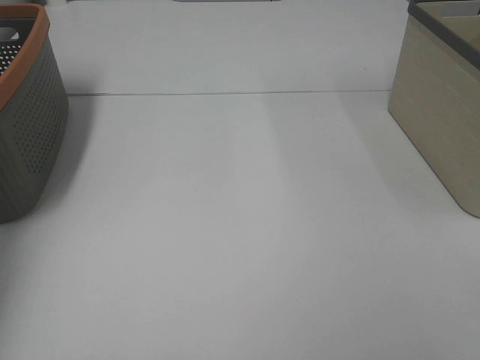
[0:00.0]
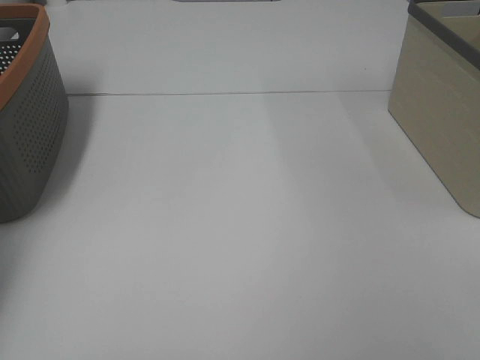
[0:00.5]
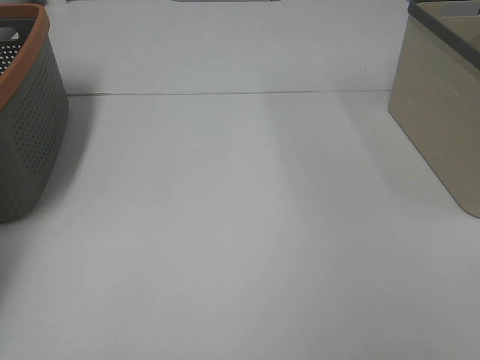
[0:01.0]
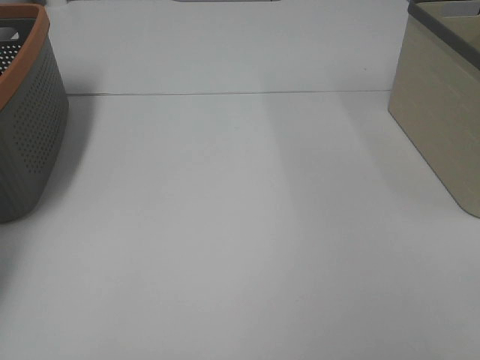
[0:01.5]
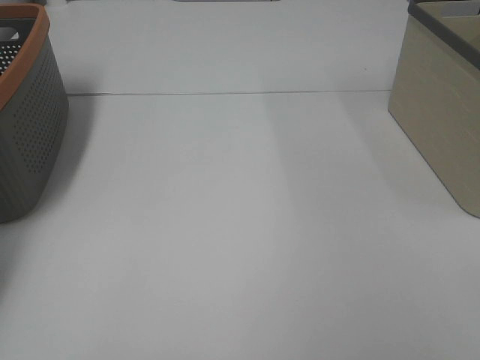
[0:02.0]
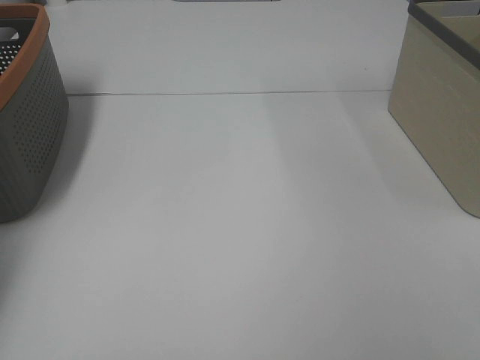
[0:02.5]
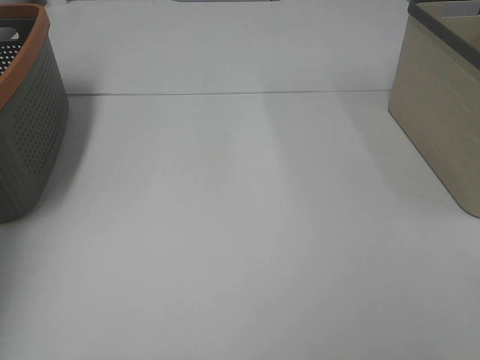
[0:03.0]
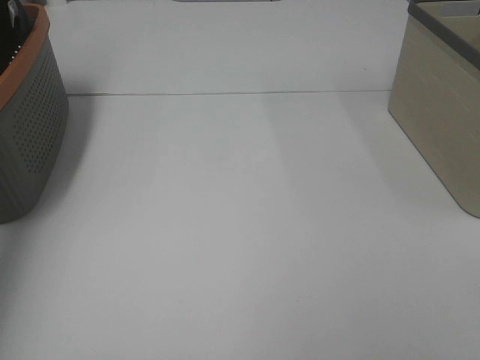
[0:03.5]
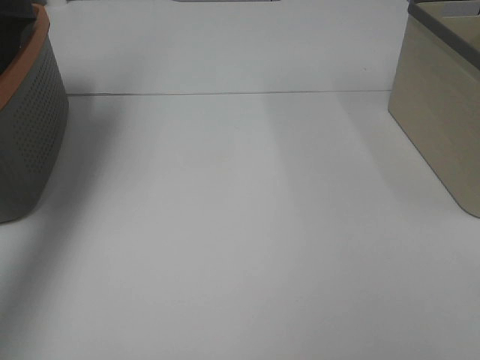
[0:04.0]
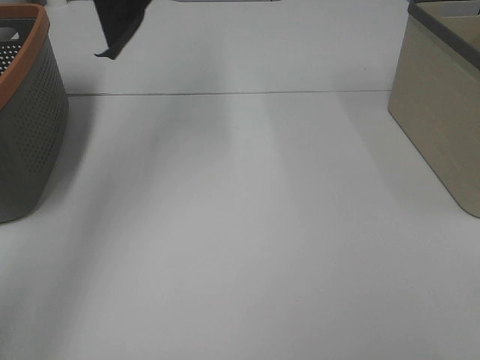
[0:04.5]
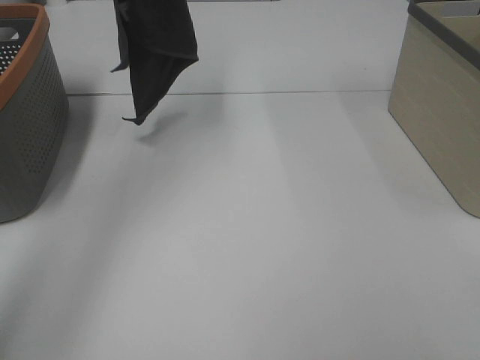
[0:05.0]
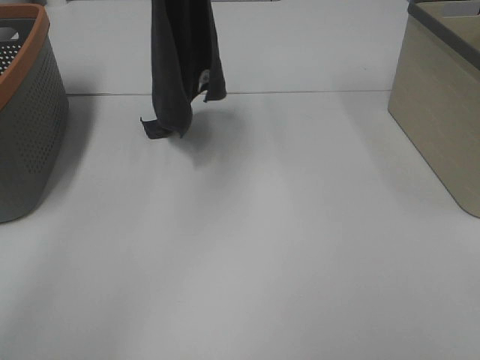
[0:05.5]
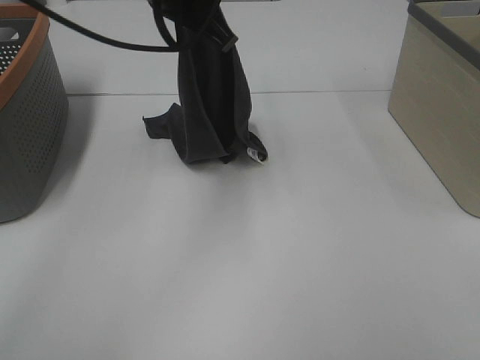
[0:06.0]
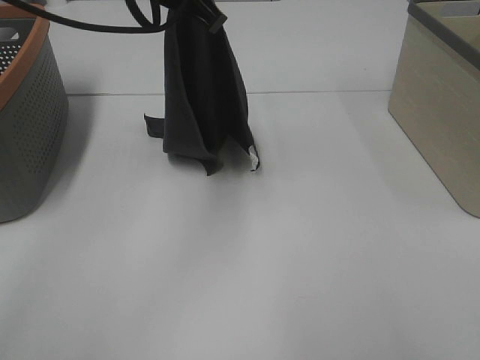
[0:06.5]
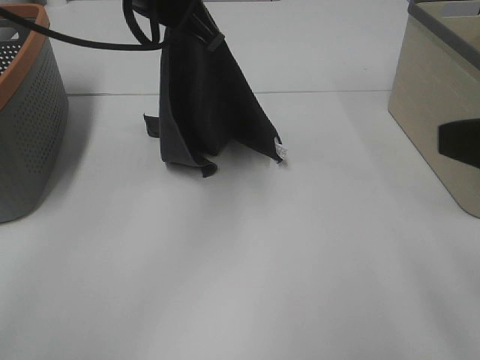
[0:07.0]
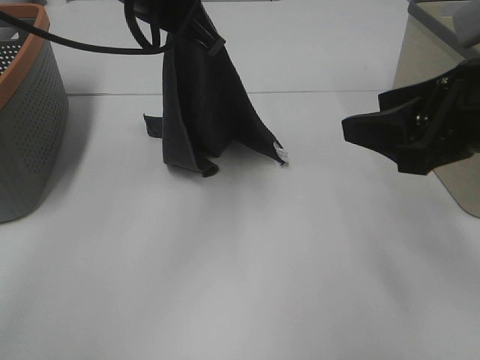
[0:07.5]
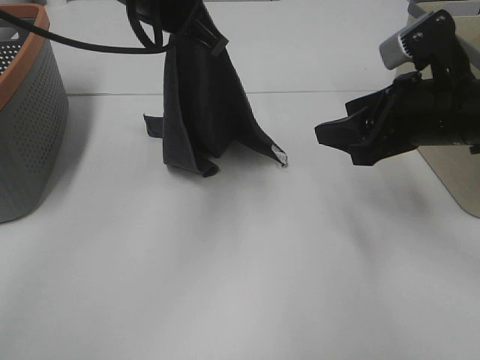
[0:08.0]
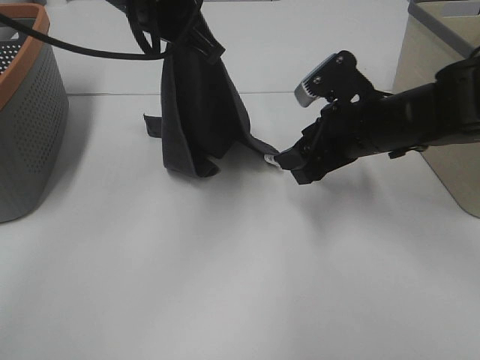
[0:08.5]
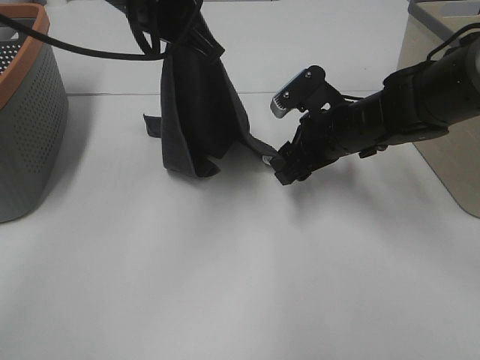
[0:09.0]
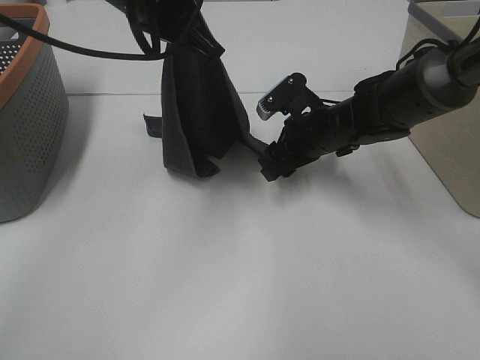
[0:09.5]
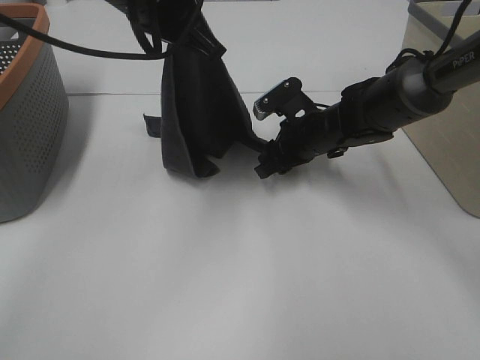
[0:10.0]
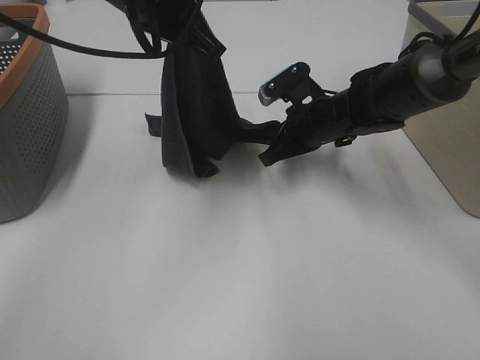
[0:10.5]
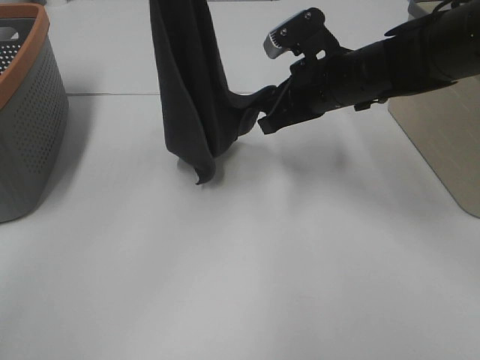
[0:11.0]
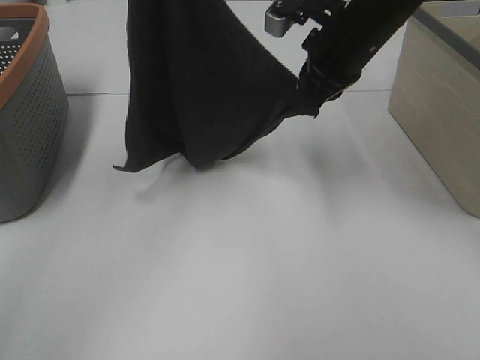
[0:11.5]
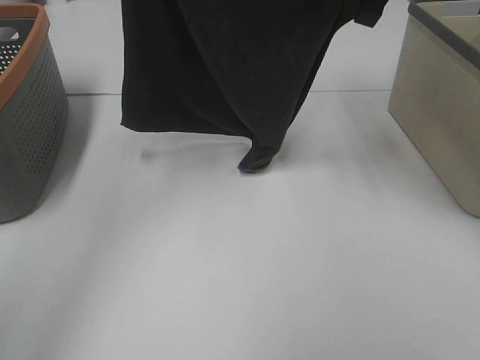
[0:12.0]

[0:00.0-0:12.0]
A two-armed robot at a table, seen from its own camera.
Task of the whole recording: Remove the towel and place it.
Step, 0:05.0 to 0:08.5: Right hand: grab a corner of the grey towel and straighten it.
Step, 0:09.0 to 0:11.0: Left hand: spread the grey towel flat on the table.
Step, 0:09.0 to 0:11.0: Right hand: spread the grey towel flat on the table.
0:02.0 to 0:04.0: The left gripper moves upward, roughly 35 cm.
0:04.0 to 0:06.0: The left gripper travels to the right and downward by some 30 cm.
0:06.0 to 0:08.0: The right gripper is displaced forward by approximately 30 cm.
0:08.0 to 0:10.0: The right gripper shifts about 20 cm forward, downward and to the left.
0:10.0 to 0:12.0: The right gripper heads upward, covering roughly 25 cm, and closes, while the left gripper shifts some 10 cm to the left and upward.

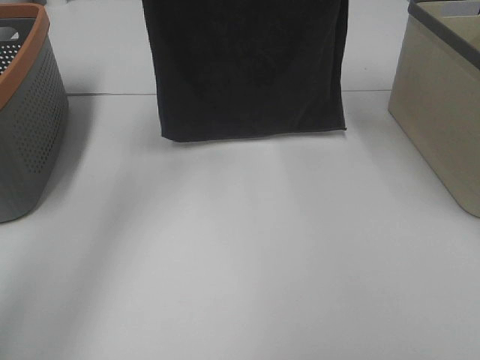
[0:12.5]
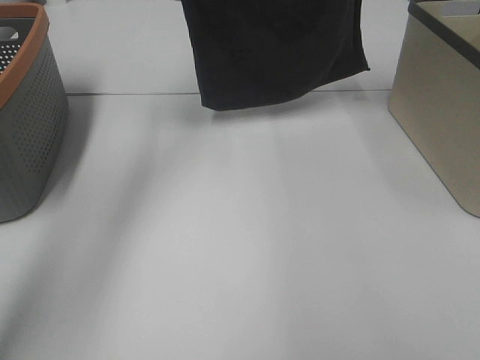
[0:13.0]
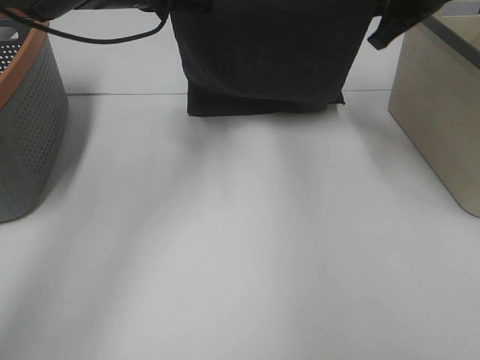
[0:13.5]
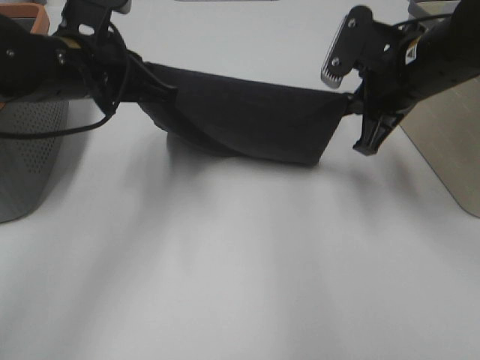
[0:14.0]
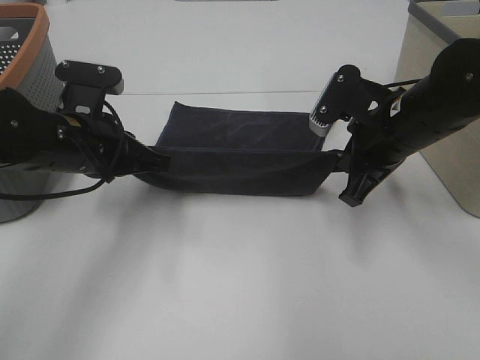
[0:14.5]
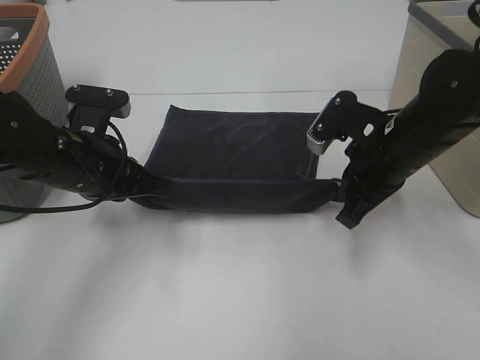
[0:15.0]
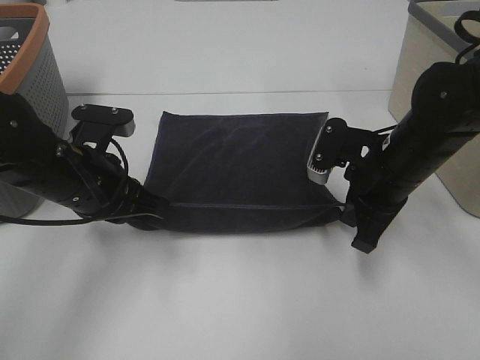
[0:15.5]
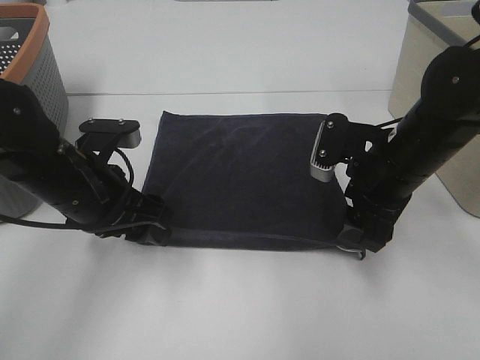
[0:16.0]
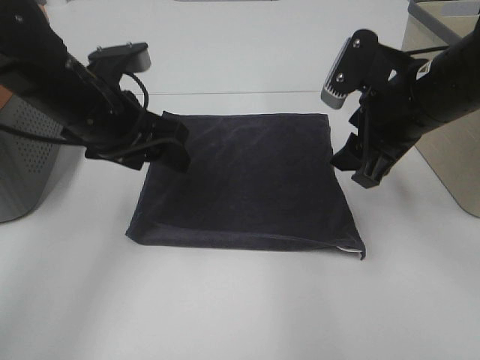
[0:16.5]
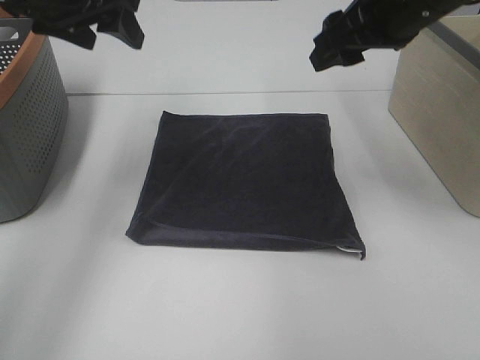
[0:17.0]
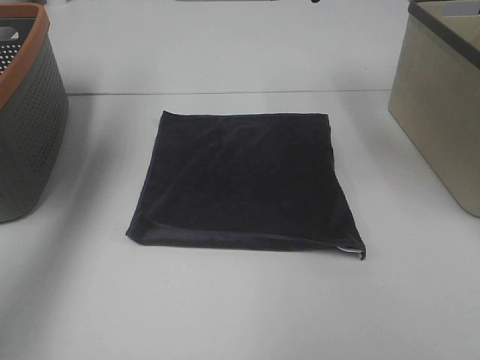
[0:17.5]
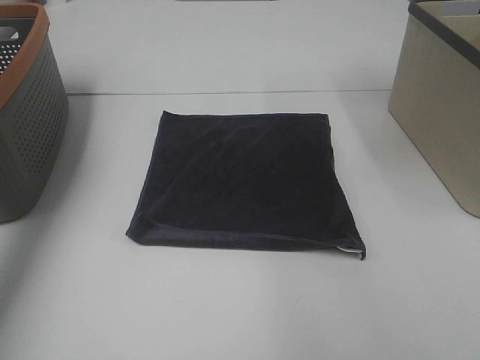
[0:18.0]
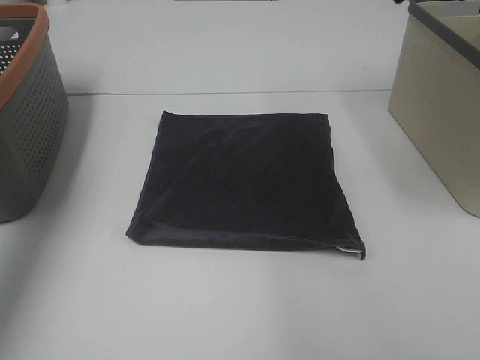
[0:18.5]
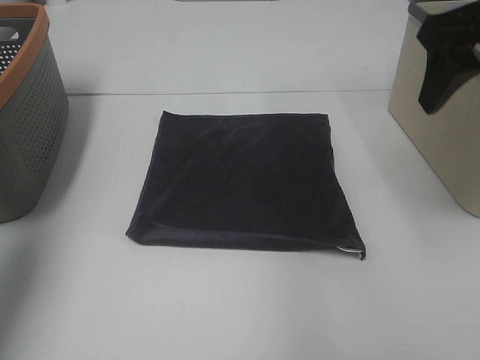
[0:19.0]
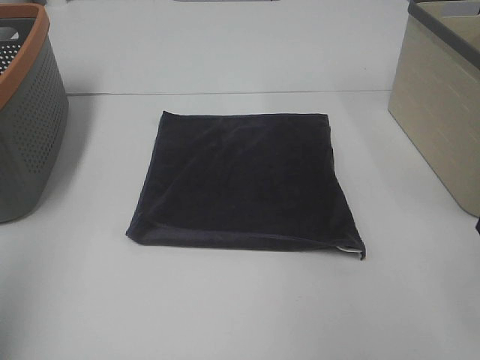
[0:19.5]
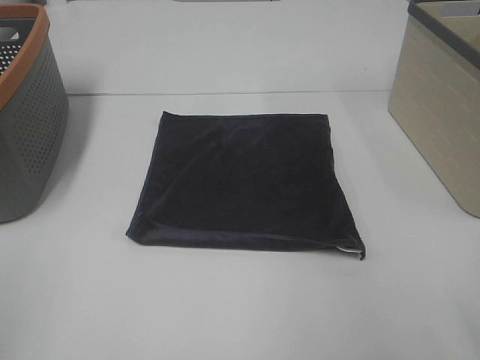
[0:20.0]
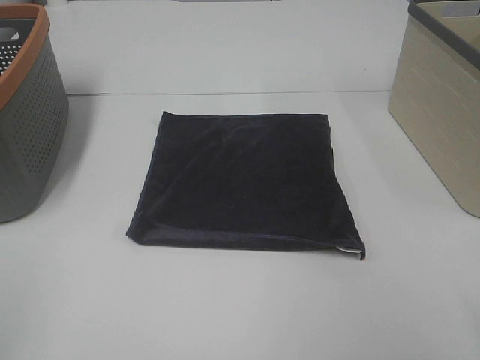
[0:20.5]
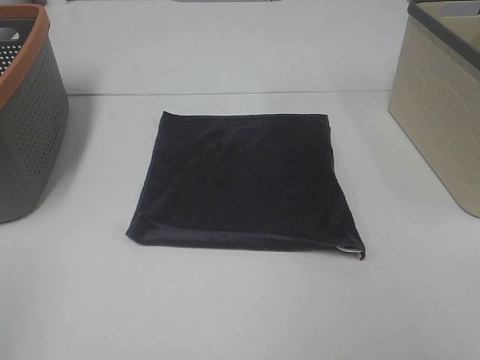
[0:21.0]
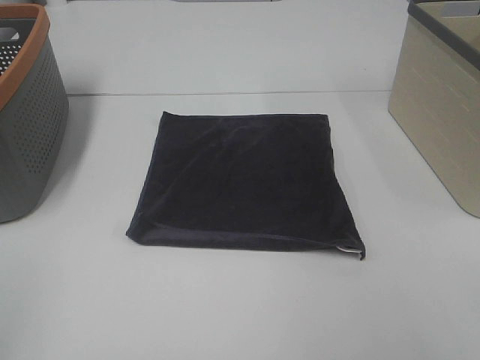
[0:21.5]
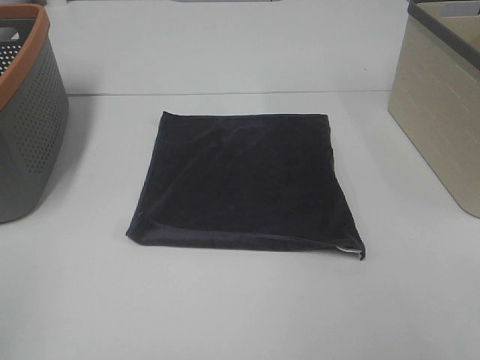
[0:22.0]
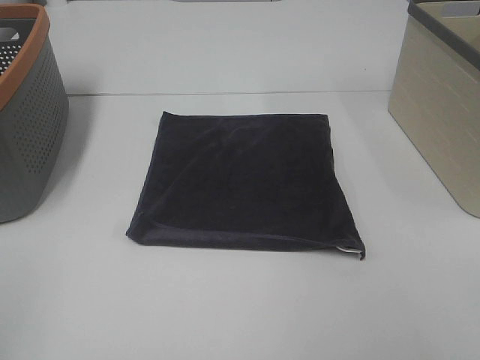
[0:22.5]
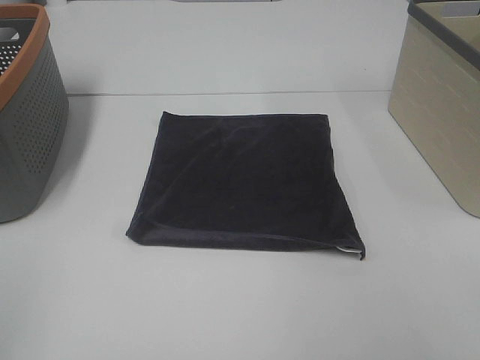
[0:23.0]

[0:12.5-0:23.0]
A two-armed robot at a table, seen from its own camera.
Task of the whole recording: Remove the towel and place it.
0:12.5 to 0:14.5: The grippers both shift downward and backward by approximately 25 cm.
0:14.5 to 0:16.5: The right gripper ends up approximately 5 cm from where it was, and opens its fingers; the left gripper ends up about 5 cm from where it was, and opens up.
0:16.5 to 0:19.0: The left gripper is displaced to the left, upward and backward by some 25 cm; the right gripper shifts about 10 cm upward and to the right.
0:19.0 to 0:21.0: The two grippers go approximately 25 cm backward.
